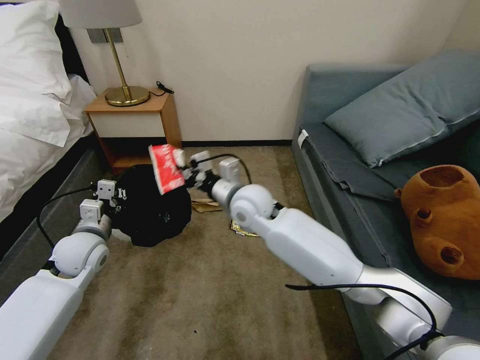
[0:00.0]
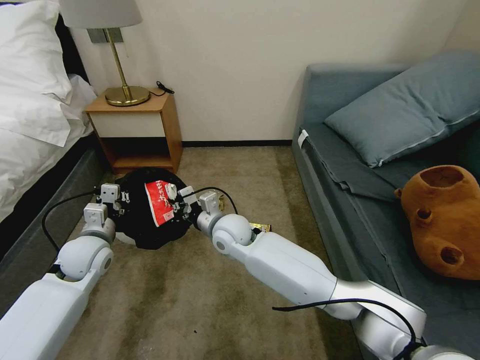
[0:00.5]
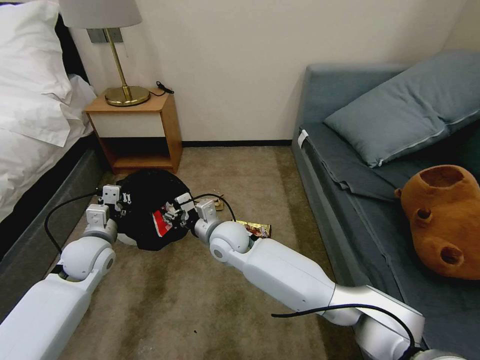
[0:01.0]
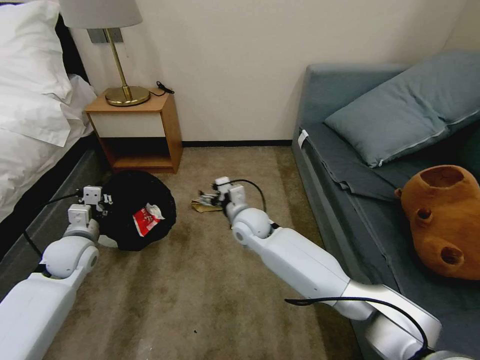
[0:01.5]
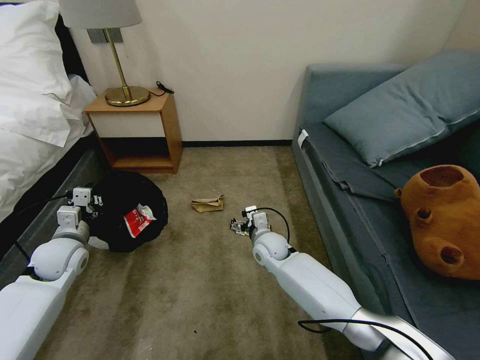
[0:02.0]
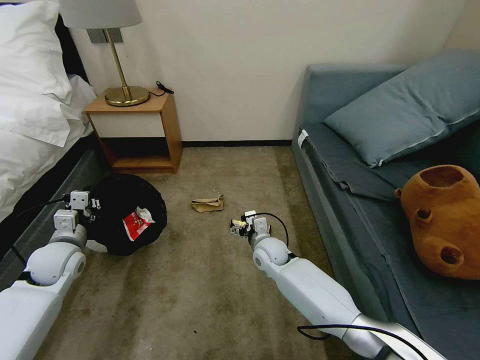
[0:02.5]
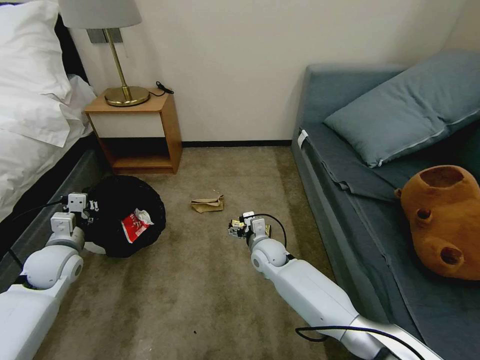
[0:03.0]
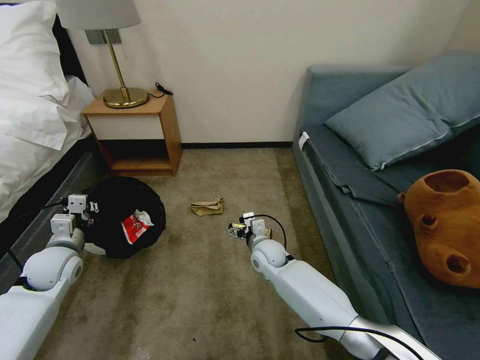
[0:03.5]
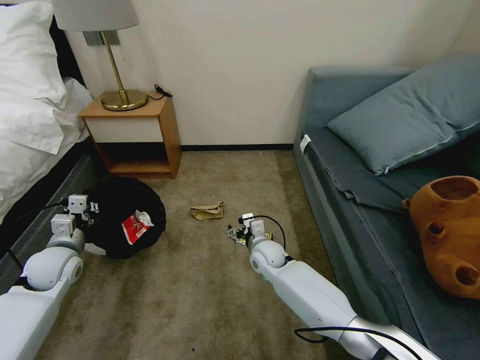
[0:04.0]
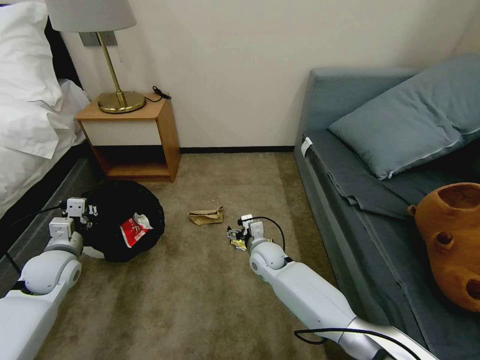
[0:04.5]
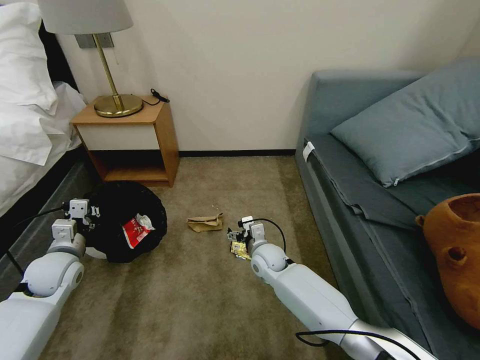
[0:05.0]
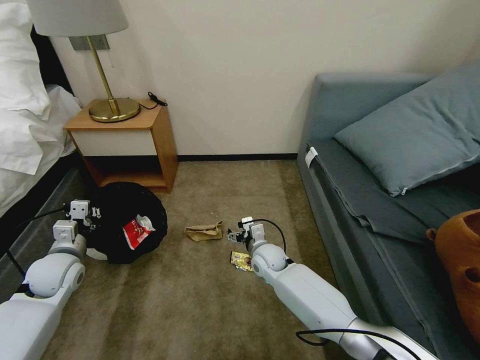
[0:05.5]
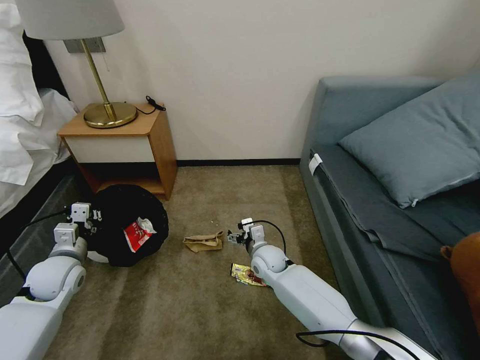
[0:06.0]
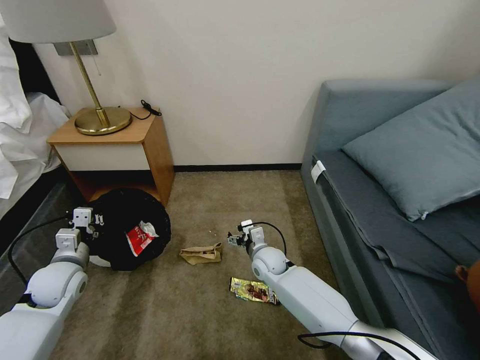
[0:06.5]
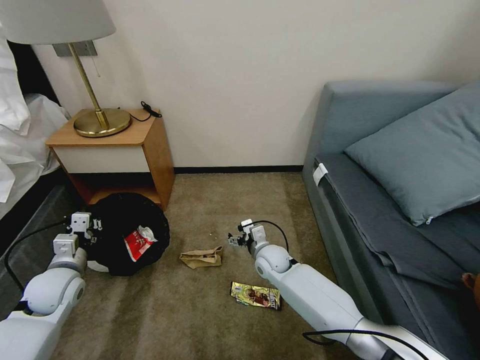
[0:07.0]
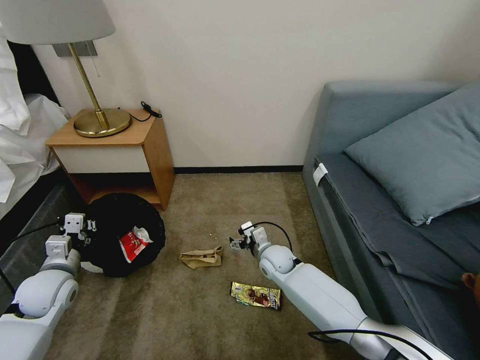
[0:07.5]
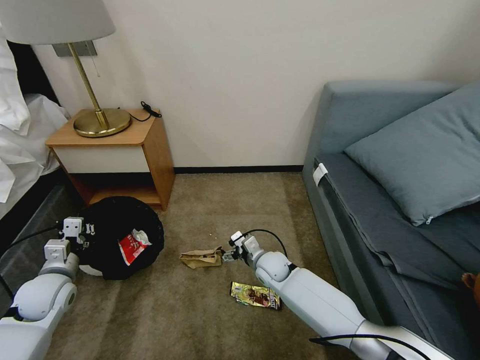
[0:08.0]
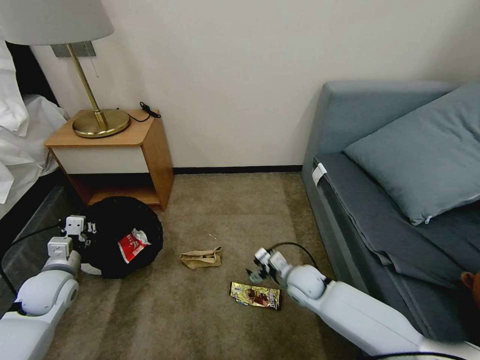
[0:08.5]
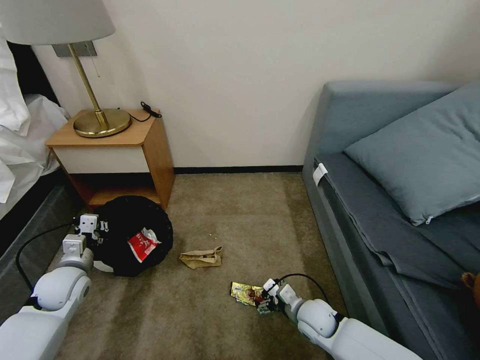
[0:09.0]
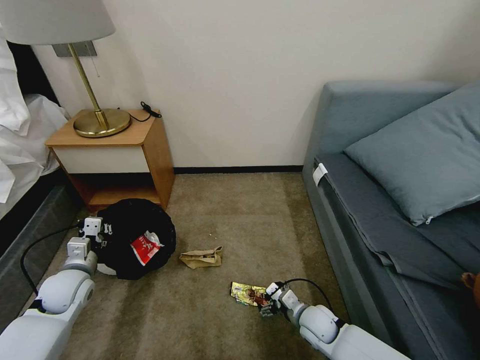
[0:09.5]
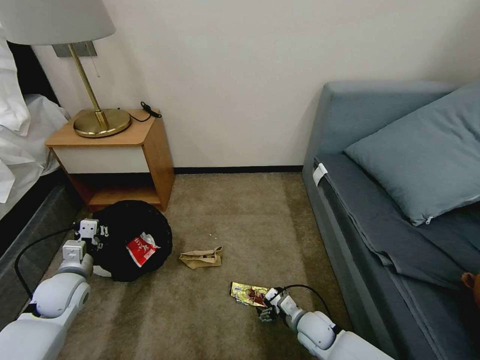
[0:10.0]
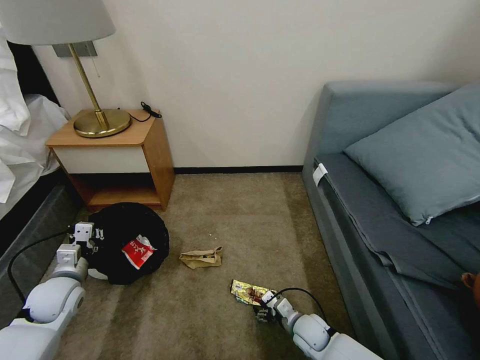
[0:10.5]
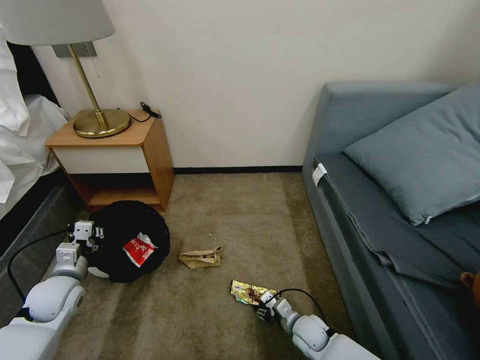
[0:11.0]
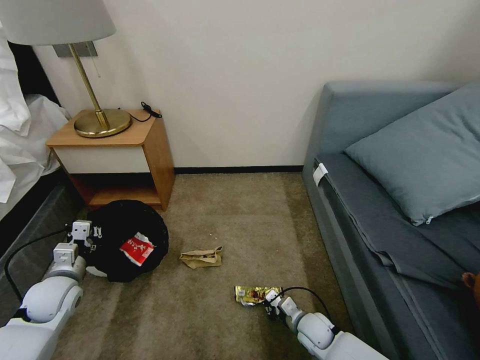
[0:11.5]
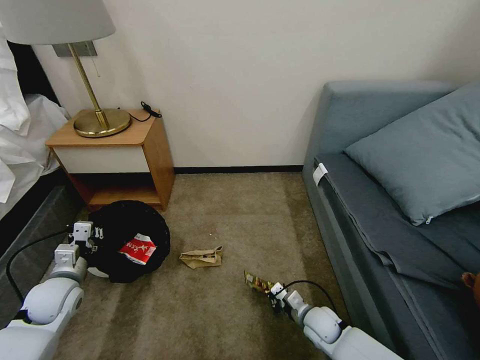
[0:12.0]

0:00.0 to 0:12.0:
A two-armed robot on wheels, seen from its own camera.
Task of the whole recording: Pick up the trash bin, then pick up the garbage on the floor and place it into the trash bin.
0:00.0 to 0:02.0: The left gripper shifts some 5 cm to the left. Meanwhile the right gripper is displaced downward by approximately 20 cm, and opens its fingers.
0:02.0 to 0:04.0: The grippers move only a little.
0:08.0 to 0:10.0: The right gripper moves backward, to the right and downward, approximately 20 cm.
0:10.0 to 0:12.0: The right gripper closes its fingers.

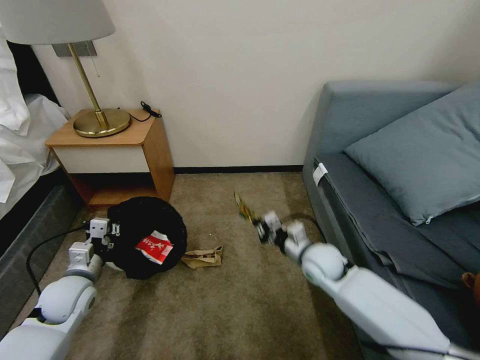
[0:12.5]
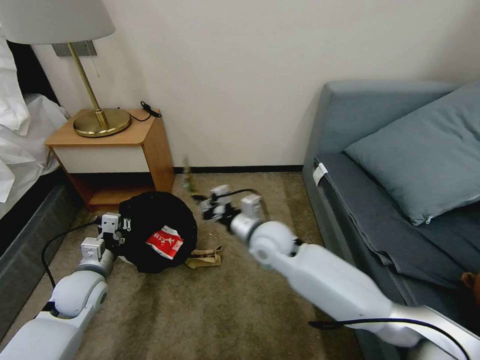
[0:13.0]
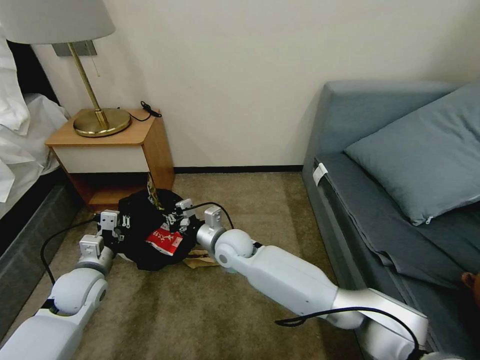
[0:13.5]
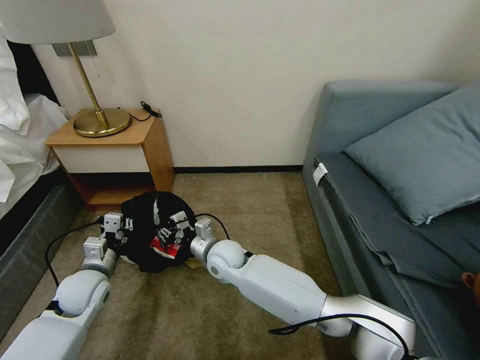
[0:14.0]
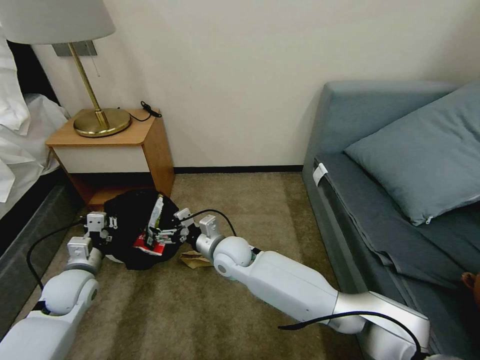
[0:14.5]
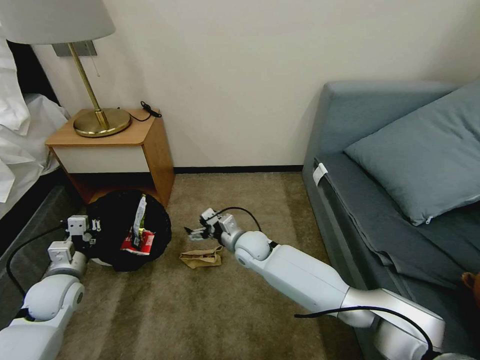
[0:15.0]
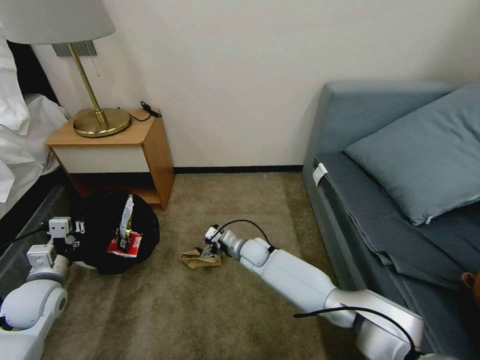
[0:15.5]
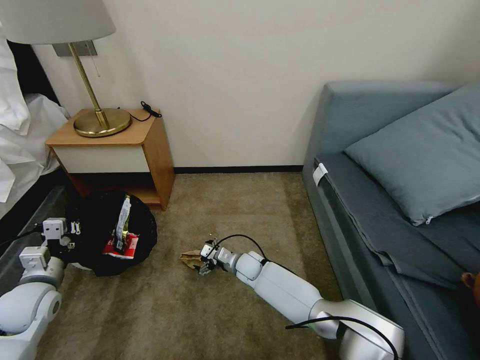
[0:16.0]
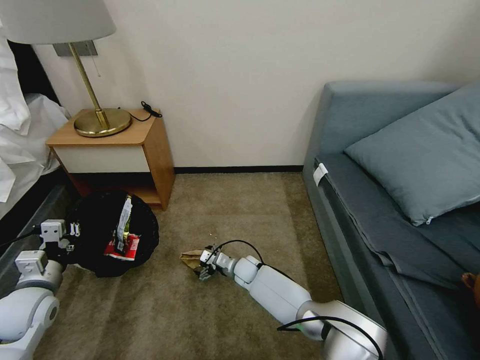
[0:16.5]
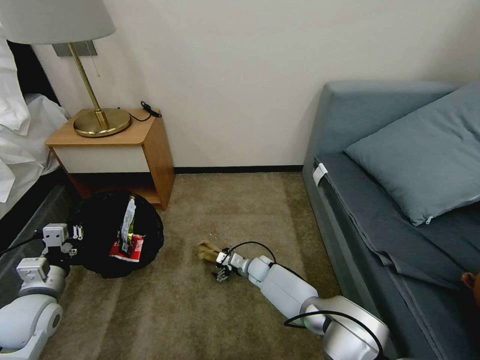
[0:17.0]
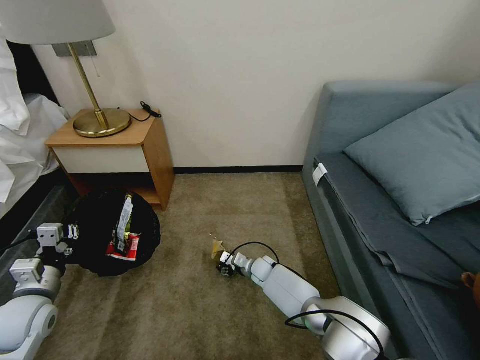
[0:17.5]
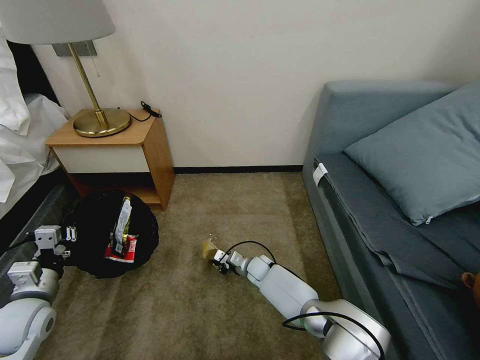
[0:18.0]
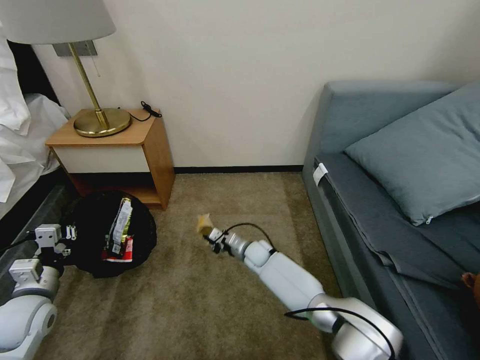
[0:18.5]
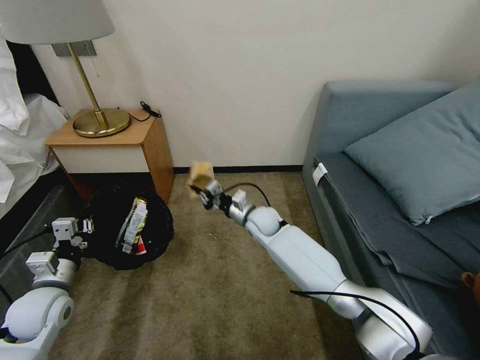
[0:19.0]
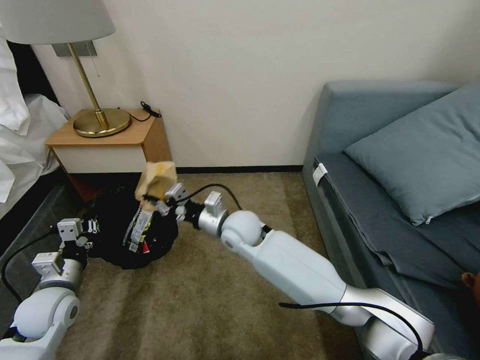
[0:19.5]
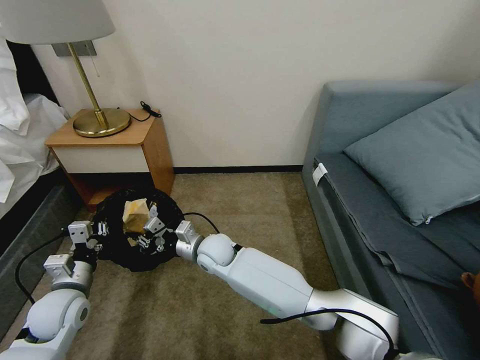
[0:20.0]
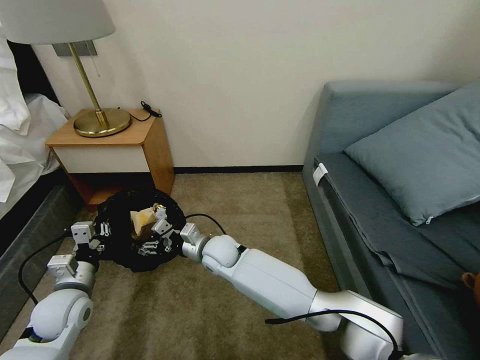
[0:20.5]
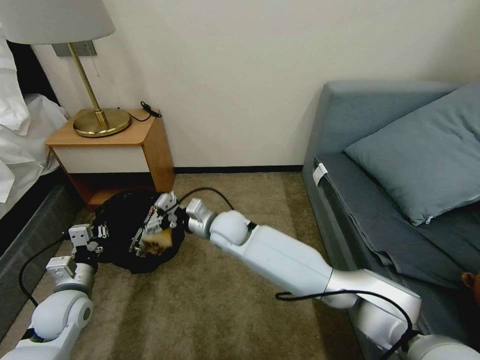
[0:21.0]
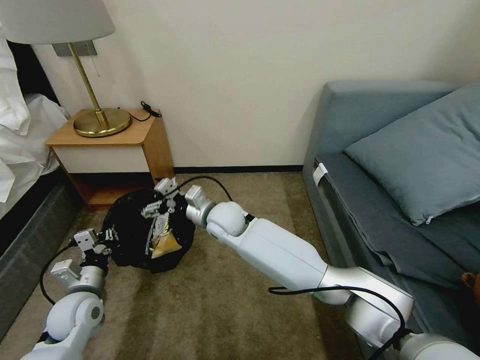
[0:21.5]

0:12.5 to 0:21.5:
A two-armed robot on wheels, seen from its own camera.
Task of the whole recording: Pick up the trash bin, then pick up the garbage on the floor and place it into the trash bin.
0:12.5 to 0:14.5: The right gripper shifts roughly 25 cm to the left, and opens its fingers.
0:14.5 to 0:17.0: The left gripper travels backward by approximately 5 cm, while the right gripper goes about 25 cm downward and to the right.
0:17.0 to 0:19.5: The right gripper is displaced upward by about 25 cm, and closes up.
0:19.5 to 0:21.5: The left gripper changes place by roughly 5 cm. The right gripper travels downward and back again, roughly 10 cm each way, and opens.

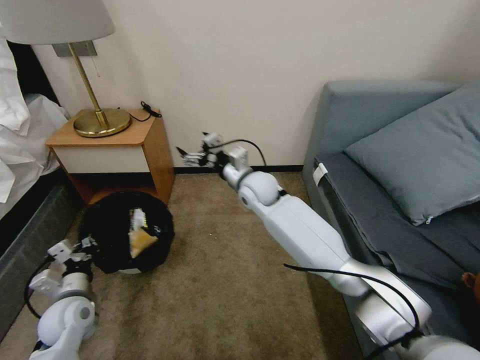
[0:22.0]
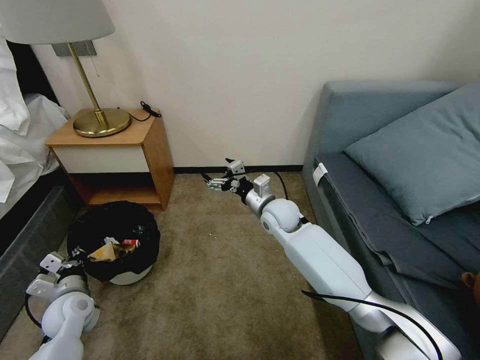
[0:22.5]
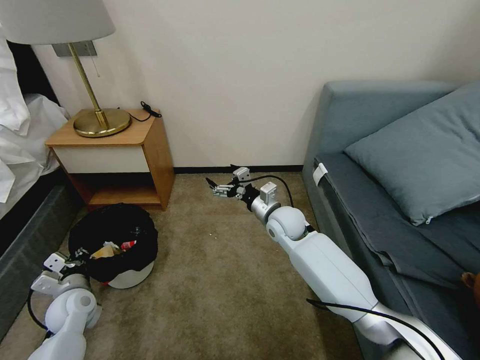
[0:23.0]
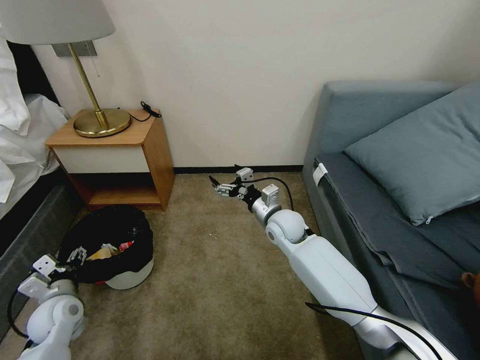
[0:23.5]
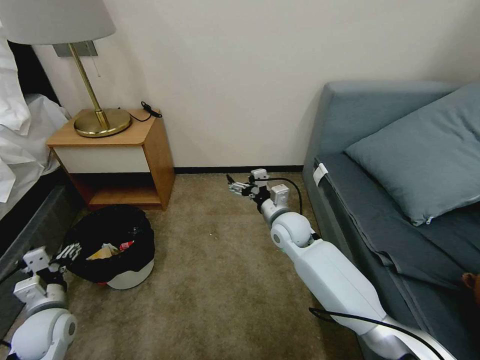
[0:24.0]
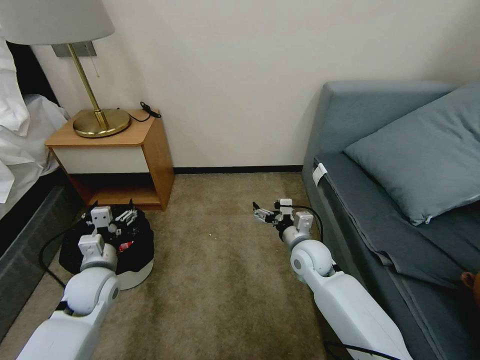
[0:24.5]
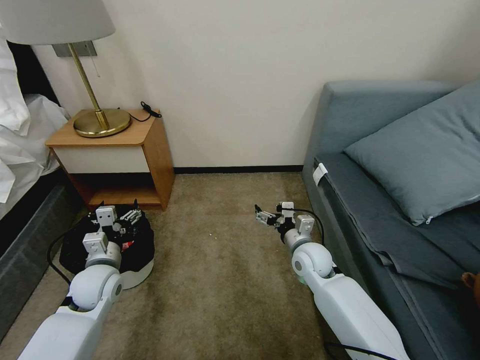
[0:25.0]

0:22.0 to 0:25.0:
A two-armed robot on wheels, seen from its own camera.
Task of the whole recording: Pick up the trash bin, then pick up the garbage on the floor and place it into the trash bin.
0:22.0 to 0:23.5: The right gripper goes about 15 cm downward, to the right and backward; the left gripper opens its fingers.
0:23.5 to 0:25.0: The right gripper moves backward, to the right and downward, about 10 cm; the left gripper heads to the right and upward, covering about 10 cm.

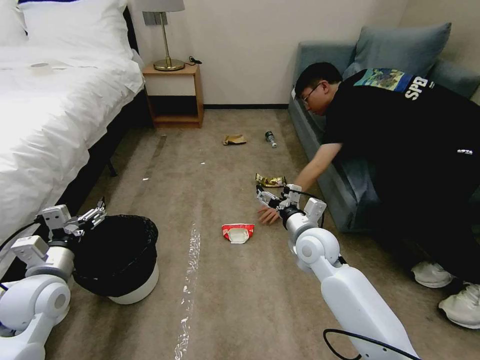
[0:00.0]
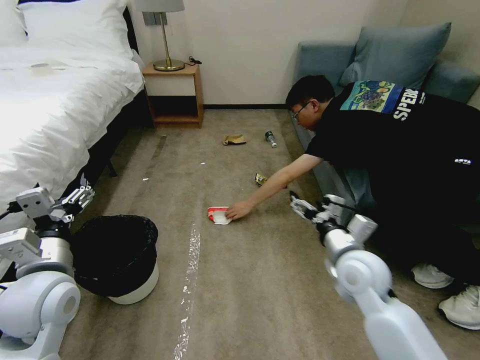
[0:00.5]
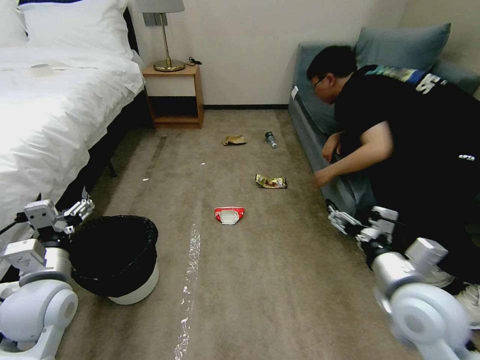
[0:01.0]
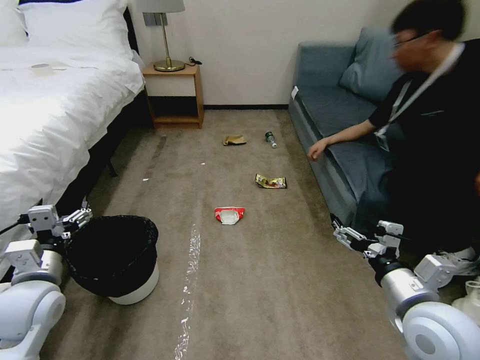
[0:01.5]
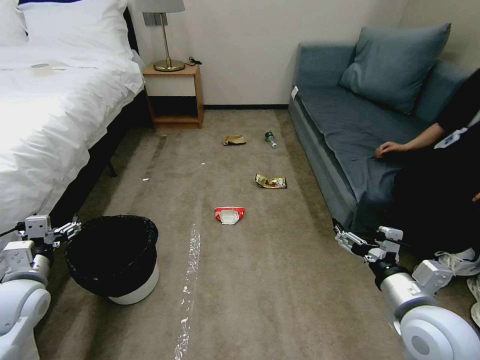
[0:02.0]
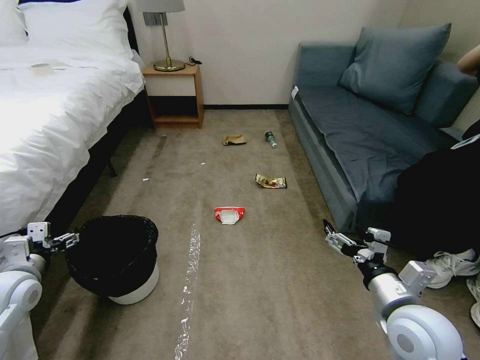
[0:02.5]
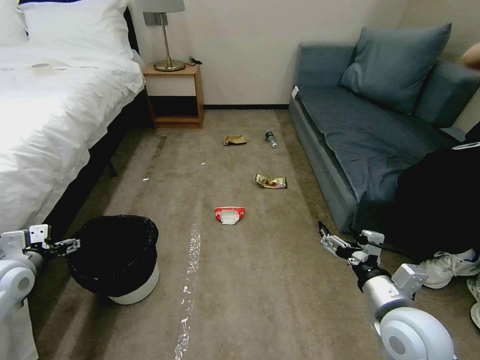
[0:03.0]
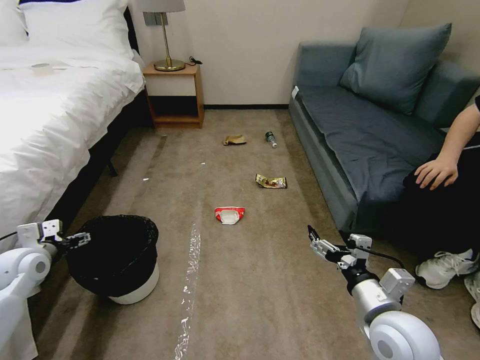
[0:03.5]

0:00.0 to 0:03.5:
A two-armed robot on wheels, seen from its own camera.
Task of the whole recording: Pick up the trash bin, then pick up the garbage on the floor and place it into the trash bin.
0:02.0 to 0:03.5: The left gripper goes some 5 cm forward. Meanwhile the right gripper changes place by some 5 cm.
